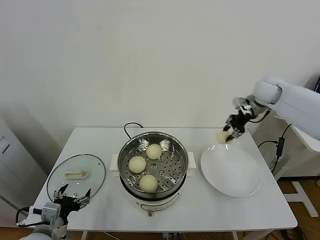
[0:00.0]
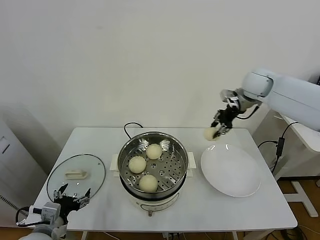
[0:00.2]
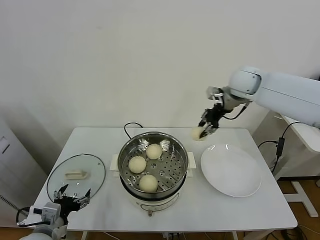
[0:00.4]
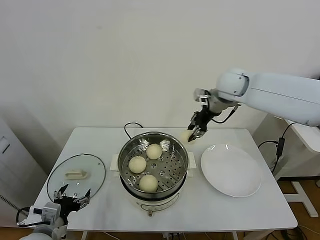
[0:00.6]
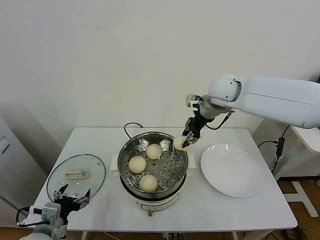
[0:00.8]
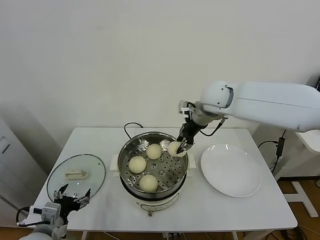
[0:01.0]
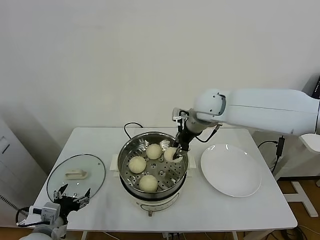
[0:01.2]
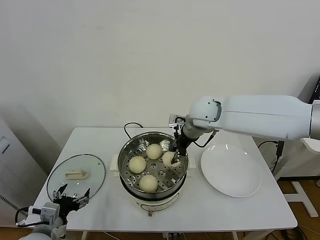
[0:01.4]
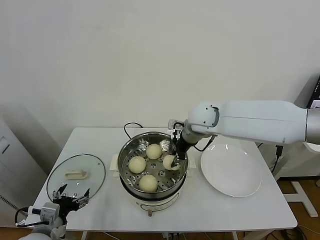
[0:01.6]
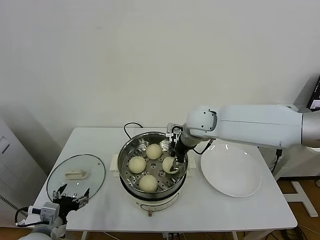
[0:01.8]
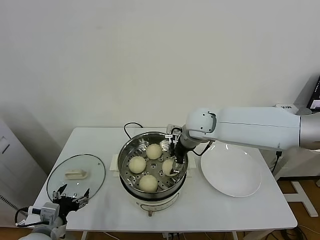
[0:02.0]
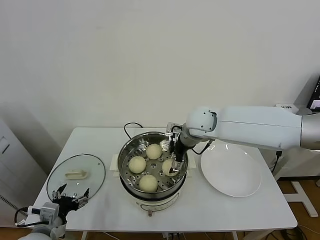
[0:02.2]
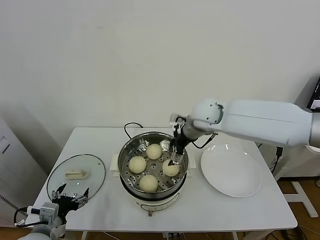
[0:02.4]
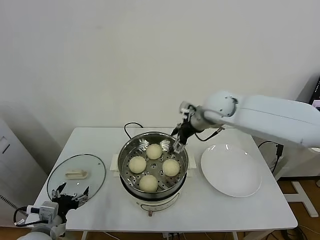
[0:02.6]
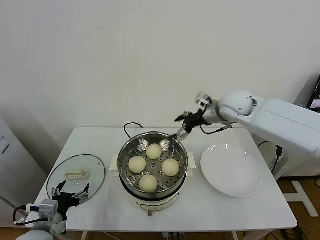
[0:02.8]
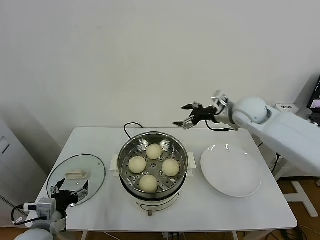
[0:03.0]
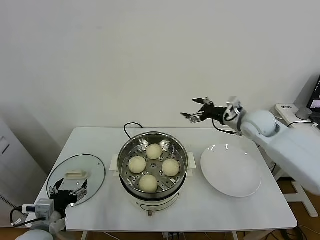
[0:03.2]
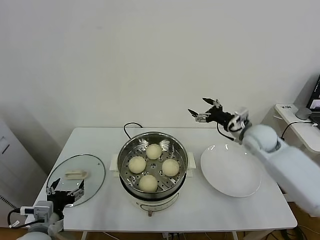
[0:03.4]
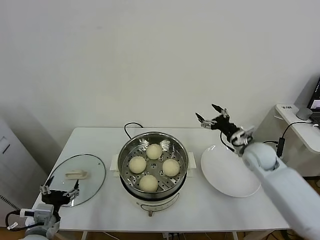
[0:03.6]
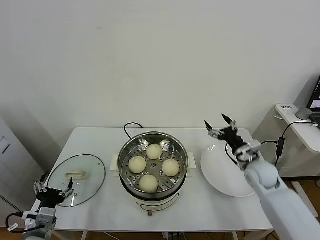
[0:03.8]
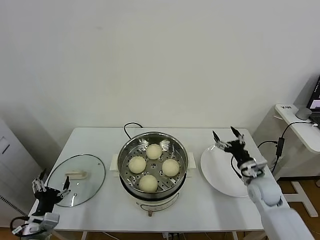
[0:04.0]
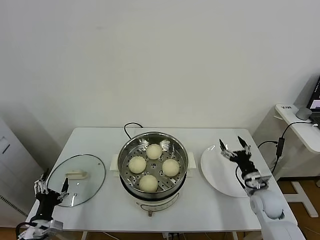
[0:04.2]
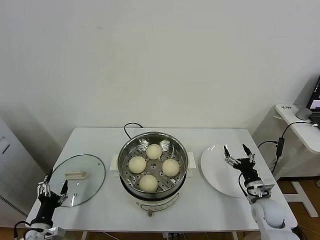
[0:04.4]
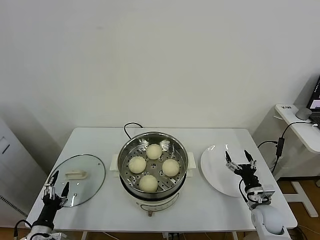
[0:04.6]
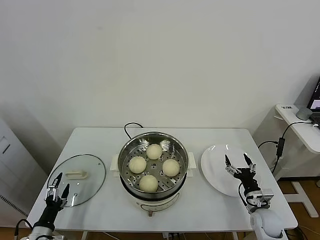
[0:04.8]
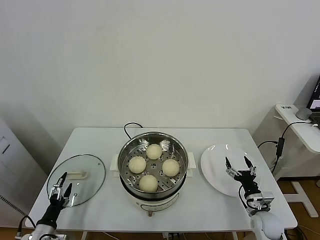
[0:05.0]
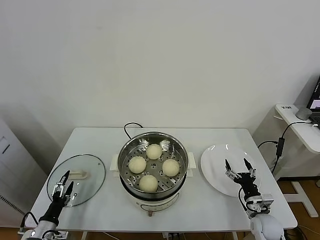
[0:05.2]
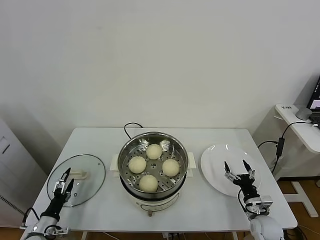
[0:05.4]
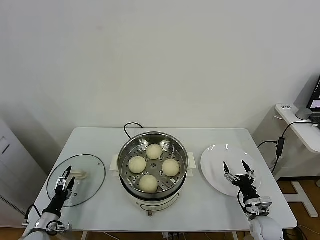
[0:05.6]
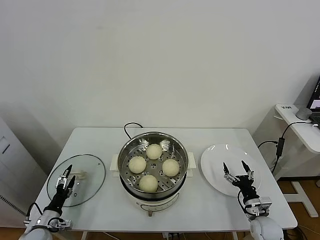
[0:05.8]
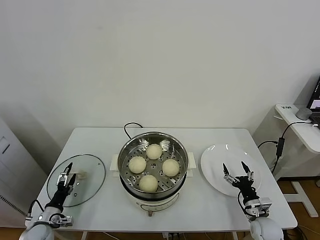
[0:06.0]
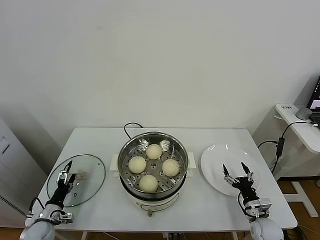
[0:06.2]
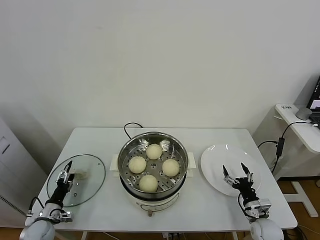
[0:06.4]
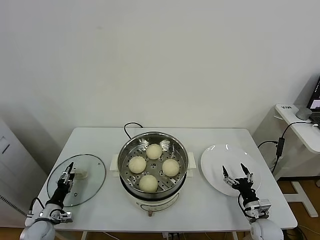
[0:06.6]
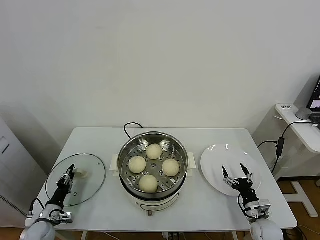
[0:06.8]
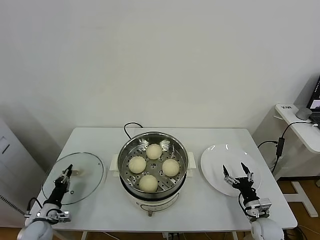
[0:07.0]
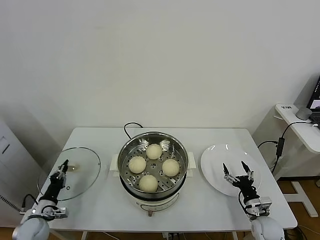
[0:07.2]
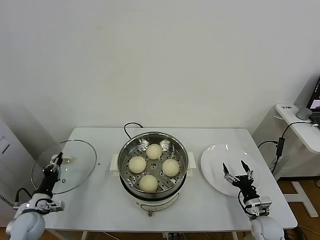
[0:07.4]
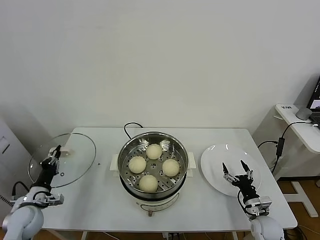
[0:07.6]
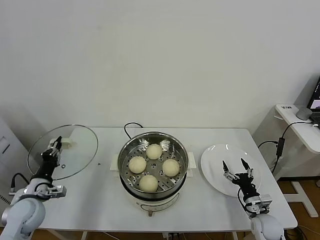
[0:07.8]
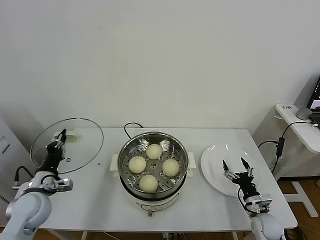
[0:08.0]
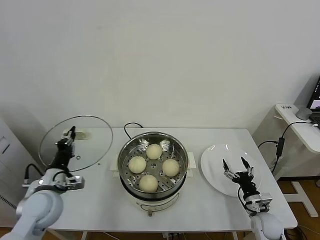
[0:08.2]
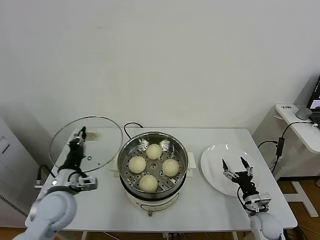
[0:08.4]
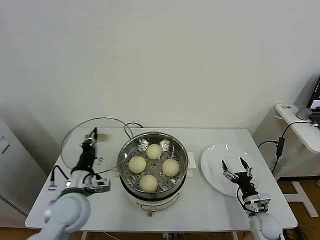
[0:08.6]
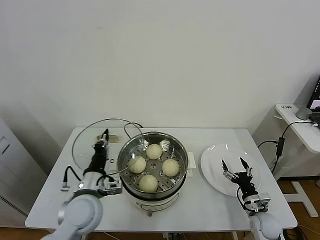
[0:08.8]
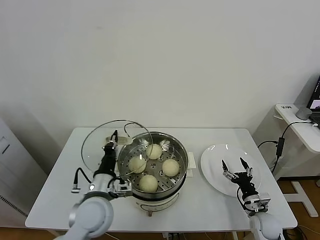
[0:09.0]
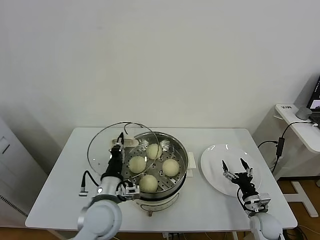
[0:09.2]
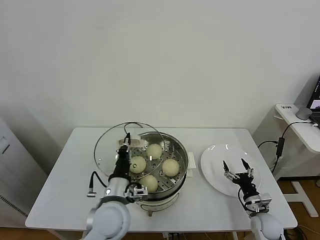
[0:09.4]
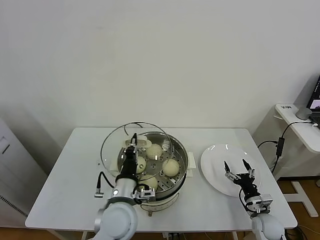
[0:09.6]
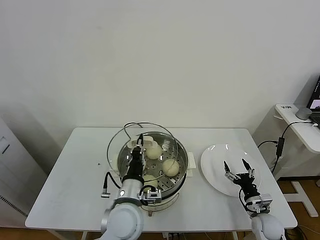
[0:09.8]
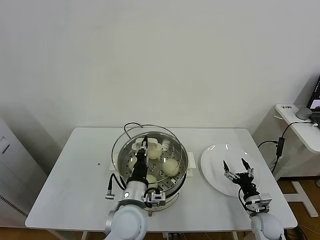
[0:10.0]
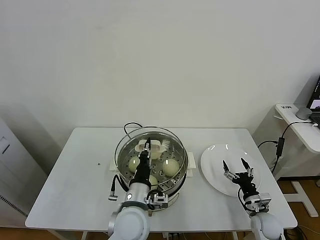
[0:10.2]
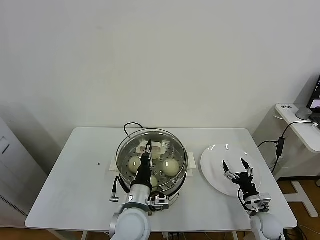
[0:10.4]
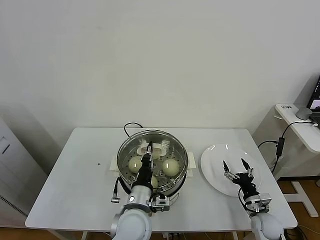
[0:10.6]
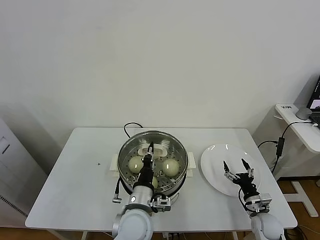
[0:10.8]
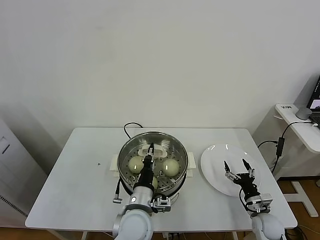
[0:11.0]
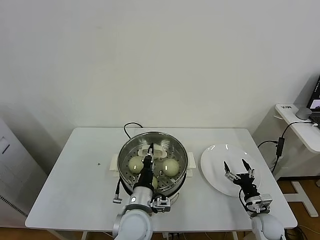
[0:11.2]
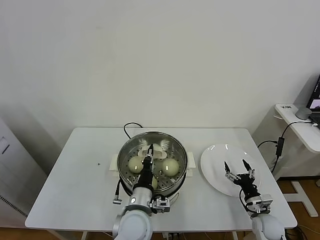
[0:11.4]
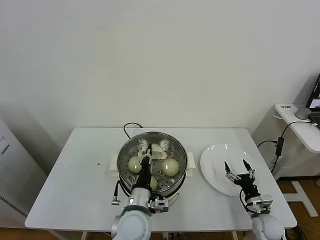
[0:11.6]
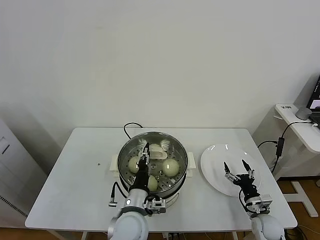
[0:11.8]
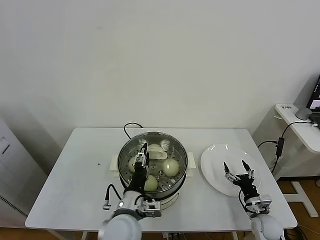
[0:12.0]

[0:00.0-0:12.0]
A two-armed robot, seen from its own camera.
Task of the whole recording: take steamed baozi put them in steamer.
Step, 0:00.0 to 0:02.2: Place the baozi on the steamer with right gripper.
Step, 0:02.4 to 0:07.2: Grasp the pot lid with left gripper.
0:00.0 to 0:01.6: The right gripper moves to the left, some 25 cm.
0:01.6 to 0:03.0: The right gripper heads to the right, covering about 15 cm, and opens up.
0:03.0 to 0:04.4: The left gripper travels downward and to the left by roughly 10 cm, while the right gripper is displaced downward and backward by about 35 cm.
0:04.4 to 0:06.0: The right gripper is displaced downward by approximately 5 cm; the left gripper is displaced downward, forward and to the left by some 10 cm.
0:06.0 to 0:07.6: The left gripper travels upward by roughly 10 cm, and closes.
0:07.6 to 0:09.0: The left gripper travels to the right and upward by some 30 cm.
0:09.0 to 0:10.4: The left gripper goes roughly 10 cm to the right.
0:10.4 to 0:12.0: The left gripper opens up.

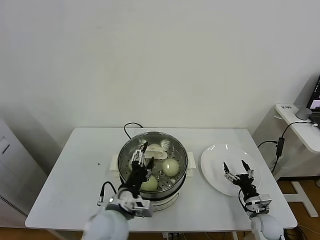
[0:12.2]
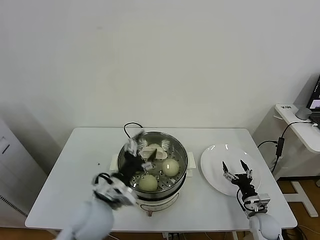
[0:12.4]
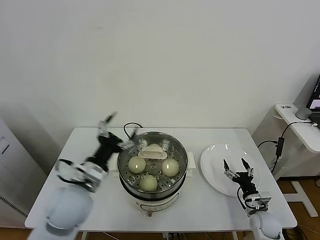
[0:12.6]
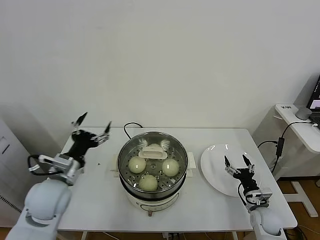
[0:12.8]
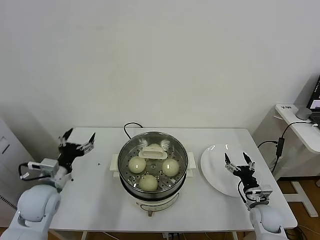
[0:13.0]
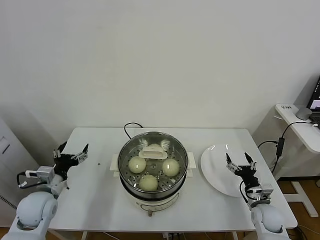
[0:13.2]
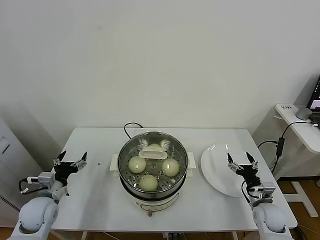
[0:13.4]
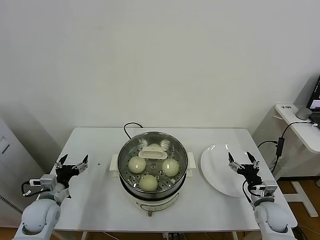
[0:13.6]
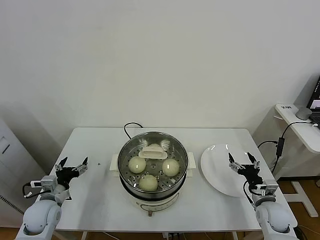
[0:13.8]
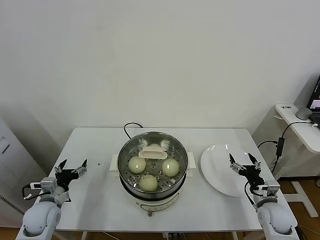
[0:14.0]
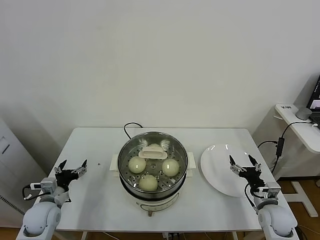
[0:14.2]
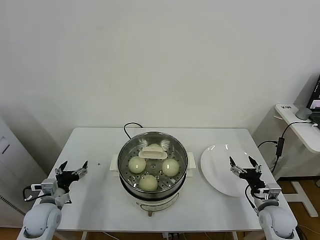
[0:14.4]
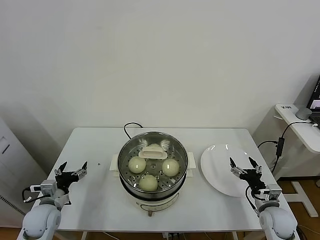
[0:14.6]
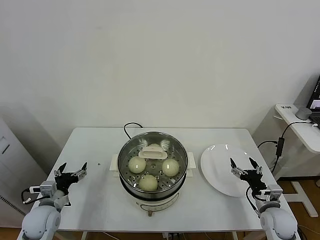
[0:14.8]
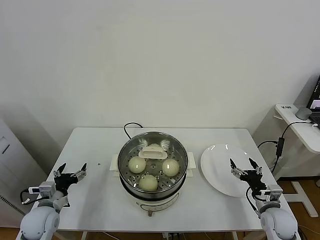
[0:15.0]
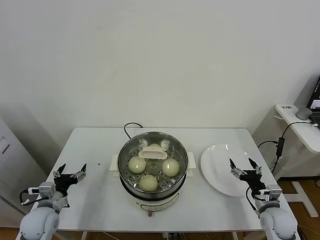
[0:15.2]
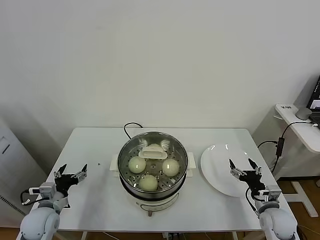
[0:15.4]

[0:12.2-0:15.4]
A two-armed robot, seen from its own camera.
Task of the whole recording: take steamed baozi put them in steamer.
0:12.2 to 0:13.8: The right gripper moves upward, about 5 cm, while the left gripper shifts about 25 cm to the left.
0:13.8 to 0:15.4: The grippers move only a little.

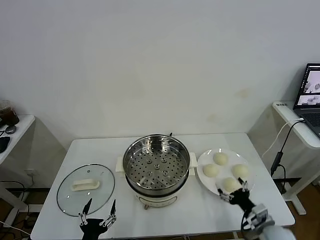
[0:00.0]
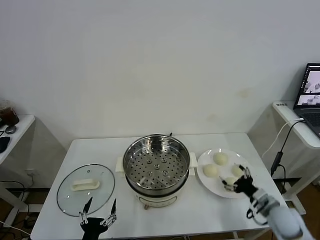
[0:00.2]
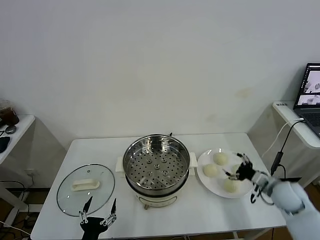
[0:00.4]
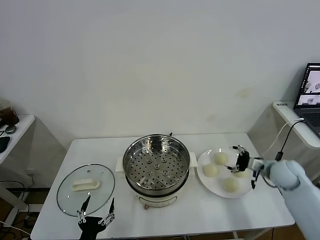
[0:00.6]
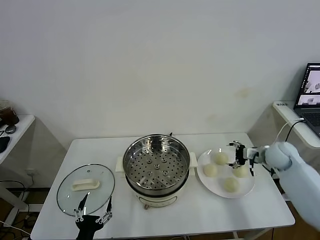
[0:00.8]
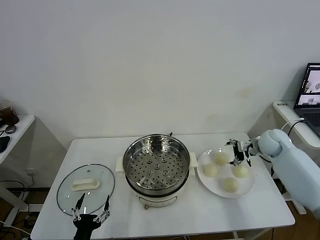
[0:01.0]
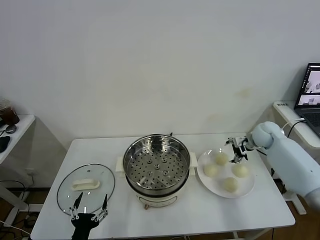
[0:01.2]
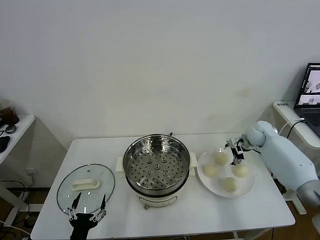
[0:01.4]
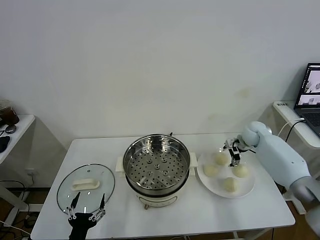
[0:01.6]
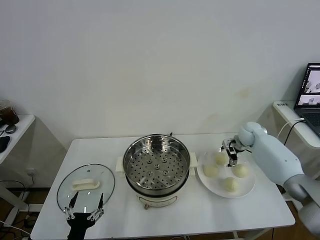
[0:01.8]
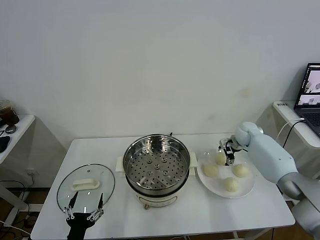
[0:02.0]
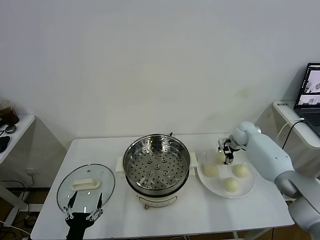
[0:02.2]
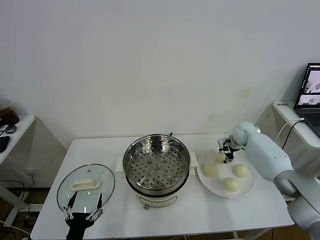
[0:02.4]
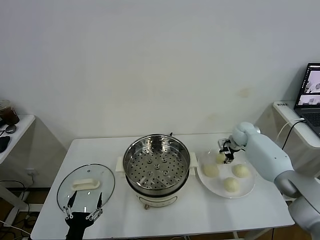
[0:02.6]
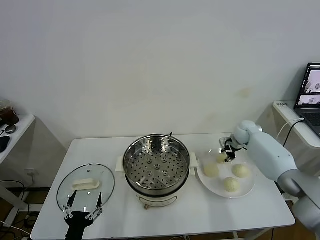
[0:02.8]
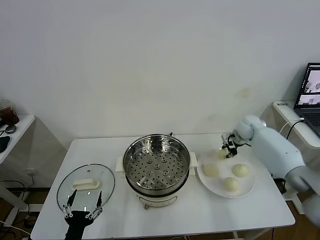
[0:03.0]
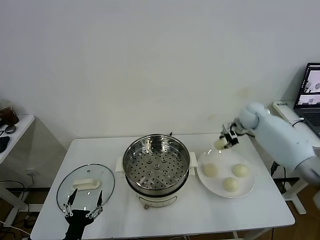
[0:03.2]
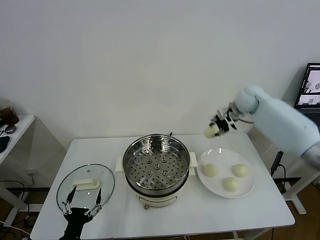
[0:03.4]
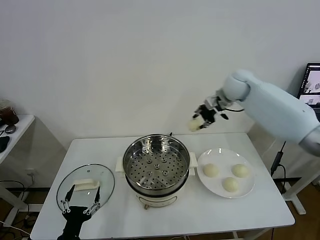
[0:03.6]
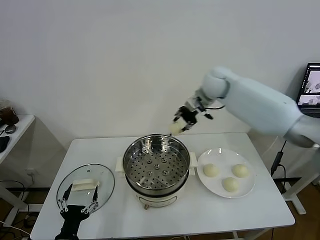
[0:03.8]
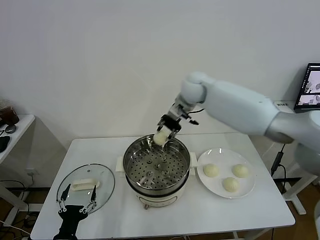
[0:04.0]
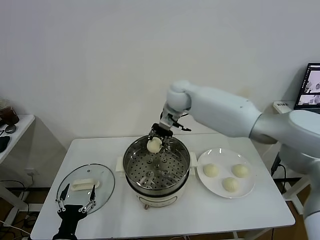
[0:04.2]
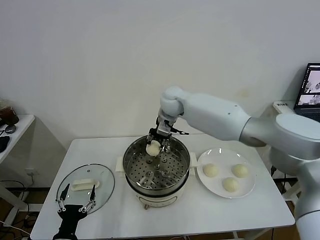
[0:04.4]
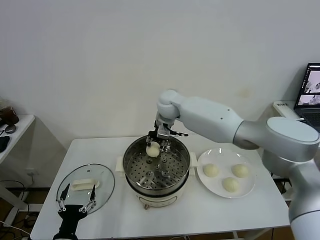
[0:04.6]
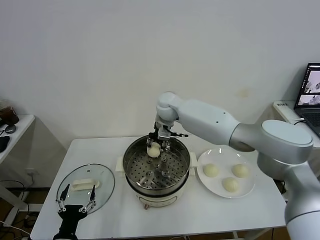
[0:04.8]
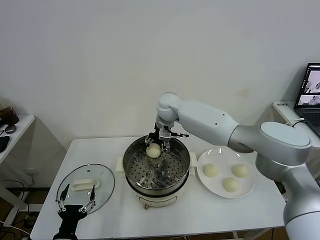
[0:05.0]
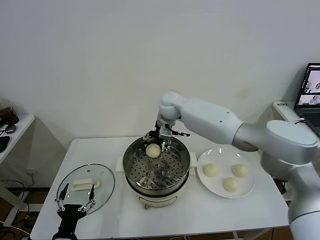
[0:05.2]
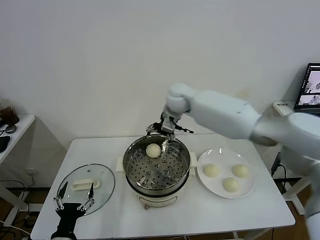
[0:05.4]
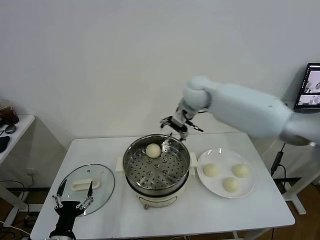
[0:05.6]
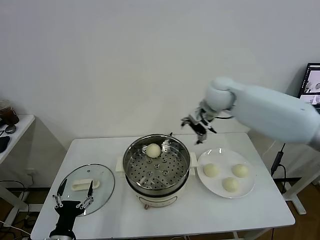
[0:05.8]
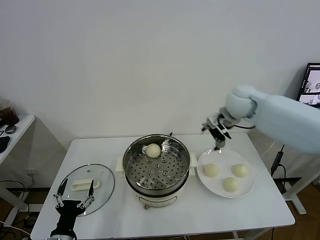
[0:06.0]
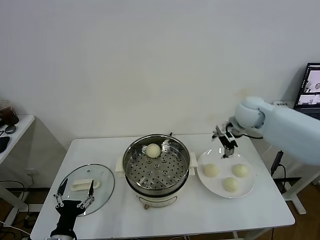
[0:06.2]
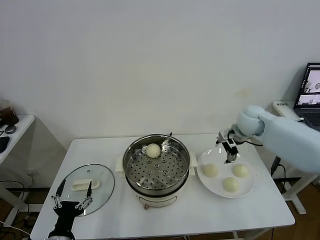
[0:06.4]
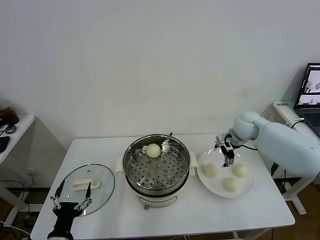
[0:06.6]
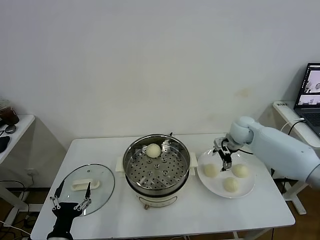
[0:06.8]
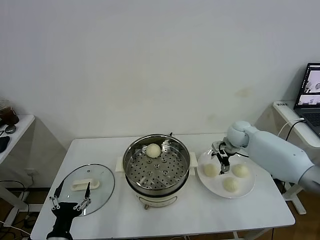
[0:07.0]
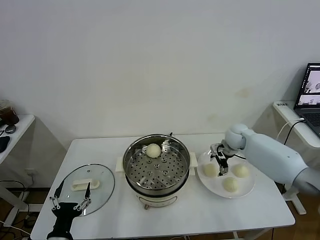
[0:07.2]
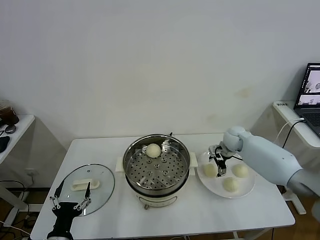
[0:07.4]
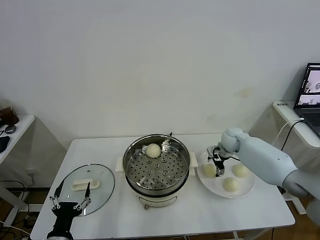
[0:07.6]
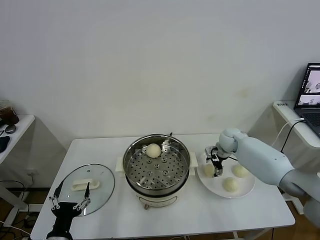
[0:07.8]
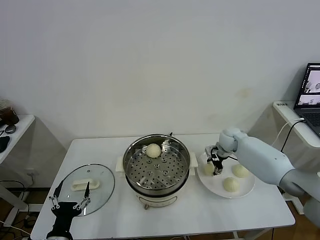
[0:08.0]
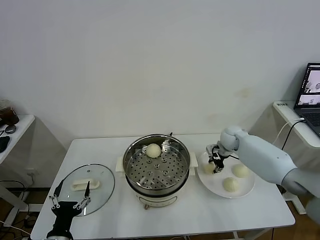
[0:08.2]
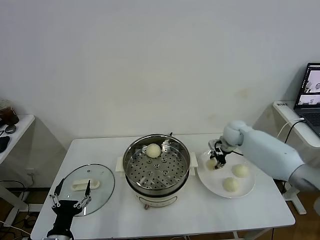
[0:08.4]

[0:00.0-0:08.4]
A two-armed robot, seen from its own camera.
Task of the whole recording: take steamed baozi put them in steamer.
Step, 0:00.0 to 0:02.6: Grasp the baozi in the plate with right gripper.
Step, 0:02.8 to 0:05.2: Place the baozi on the steamer with right gripper.
Step, 0:05.4 to 0:08.0: Grasp the baozi in the plate with right gripper.
0:01.4 to 0:02.8: The right gripper closes its fingers.
0:02.8 to 0:04.2: The right gripper travels to the left and upward by some 35 cm.
0:04.2 to 0:05.6: The right gripper shifts about 5 cm to the right, and opens its fingers.
0:05.6 to 0:07.0: The right gripper heads downward and to the right, covering about 25 cm.
0:07.0 to 0:08.4: The right gripper closes its fingers.
